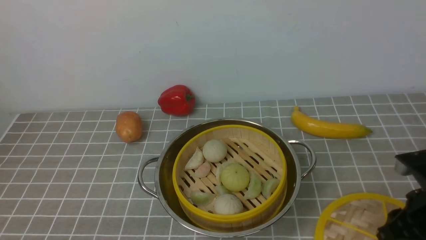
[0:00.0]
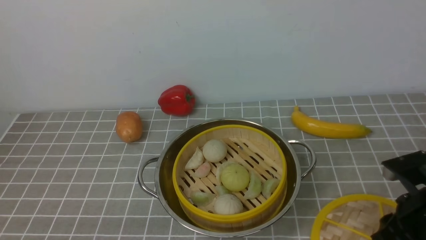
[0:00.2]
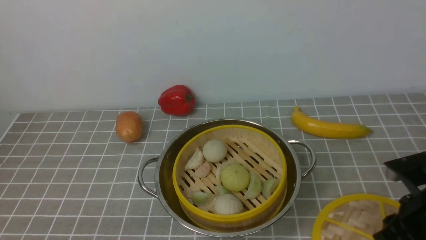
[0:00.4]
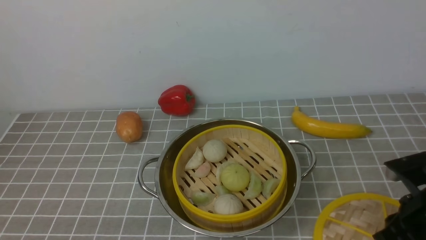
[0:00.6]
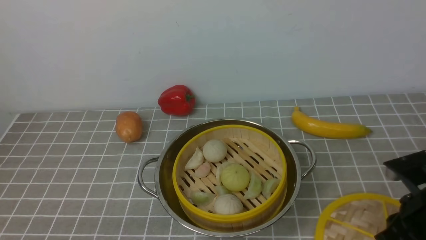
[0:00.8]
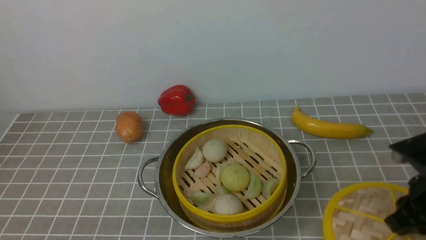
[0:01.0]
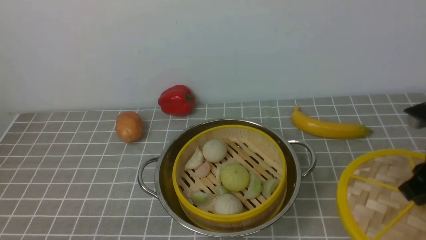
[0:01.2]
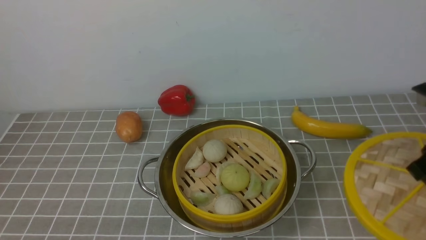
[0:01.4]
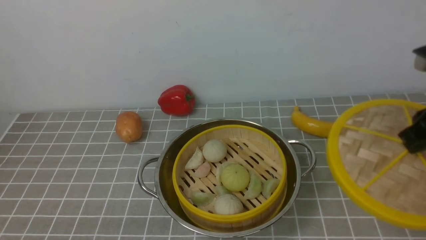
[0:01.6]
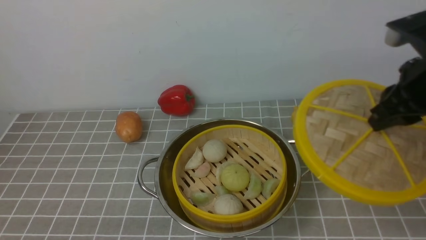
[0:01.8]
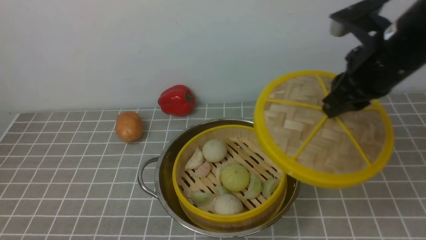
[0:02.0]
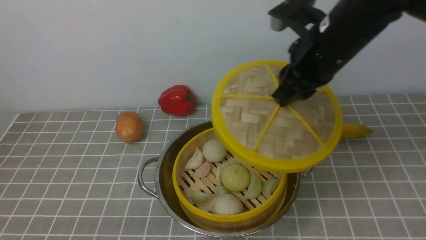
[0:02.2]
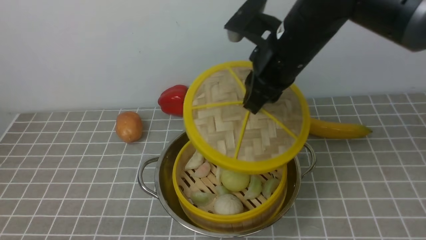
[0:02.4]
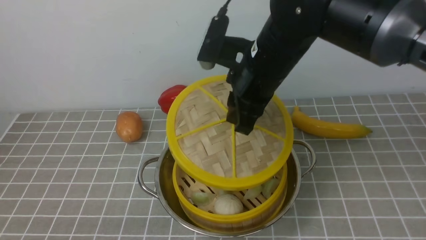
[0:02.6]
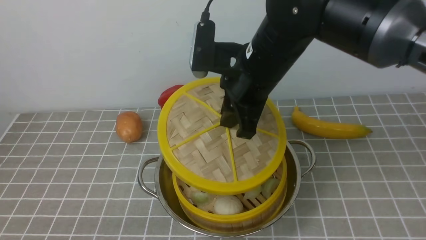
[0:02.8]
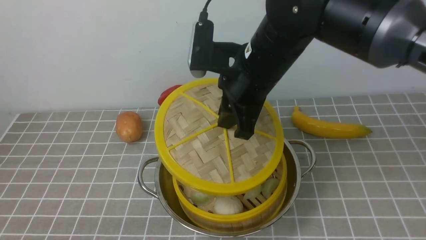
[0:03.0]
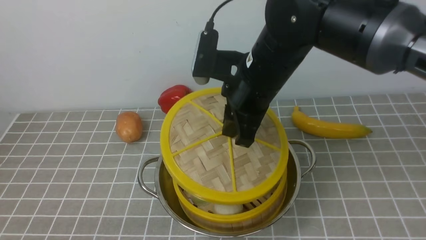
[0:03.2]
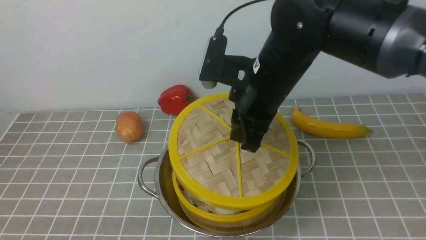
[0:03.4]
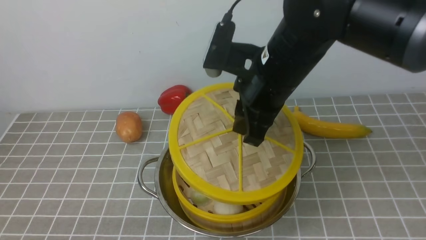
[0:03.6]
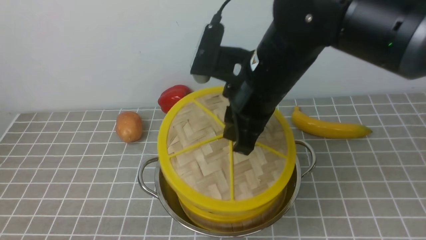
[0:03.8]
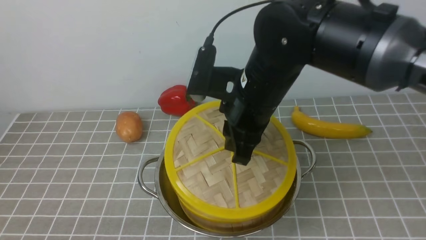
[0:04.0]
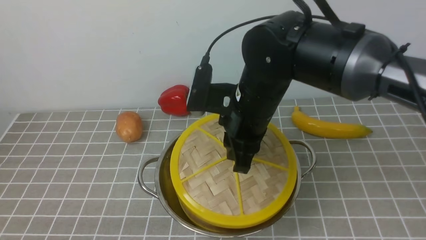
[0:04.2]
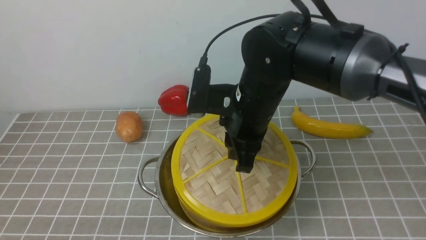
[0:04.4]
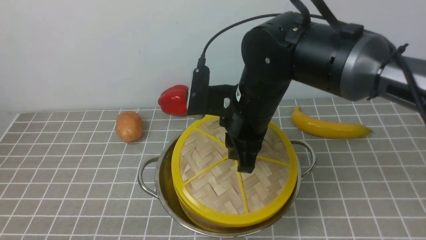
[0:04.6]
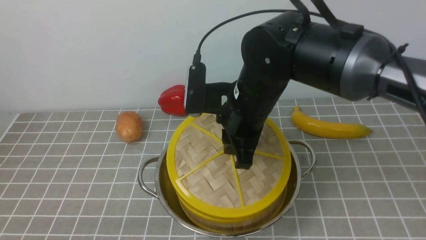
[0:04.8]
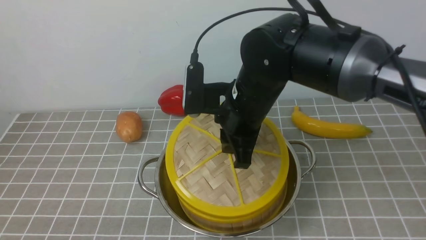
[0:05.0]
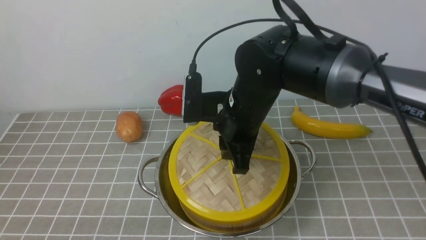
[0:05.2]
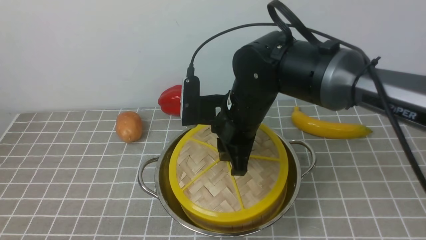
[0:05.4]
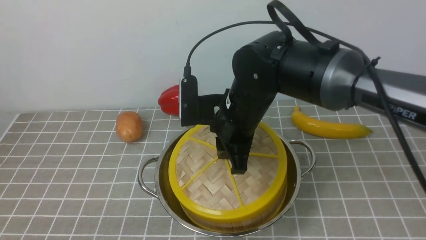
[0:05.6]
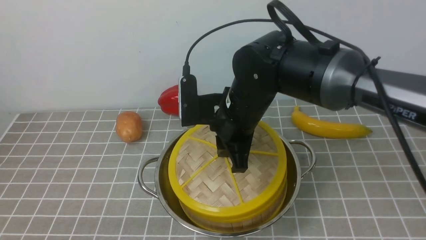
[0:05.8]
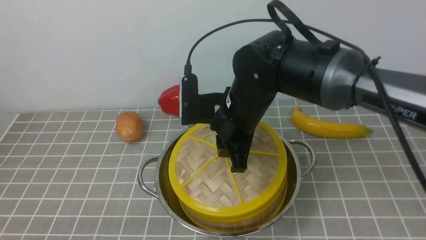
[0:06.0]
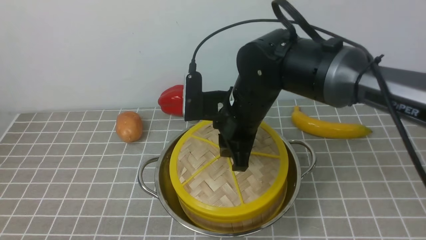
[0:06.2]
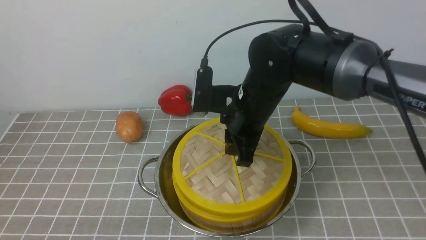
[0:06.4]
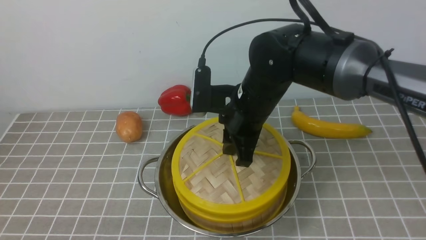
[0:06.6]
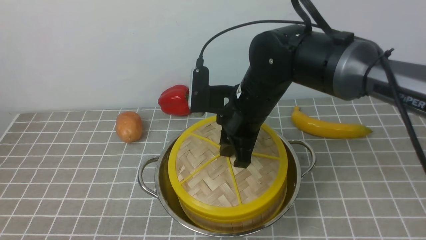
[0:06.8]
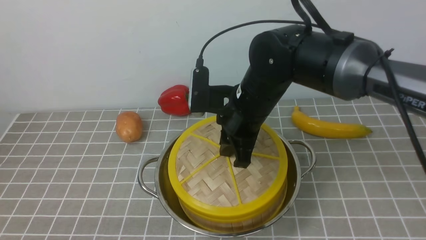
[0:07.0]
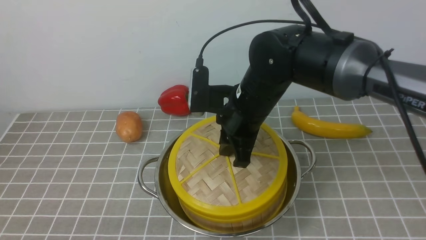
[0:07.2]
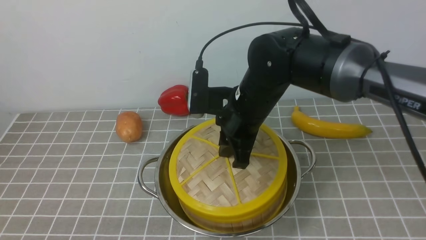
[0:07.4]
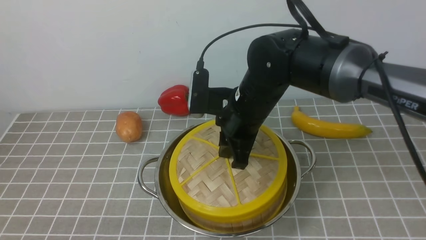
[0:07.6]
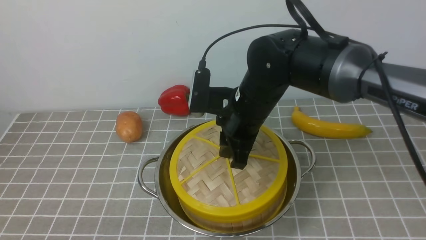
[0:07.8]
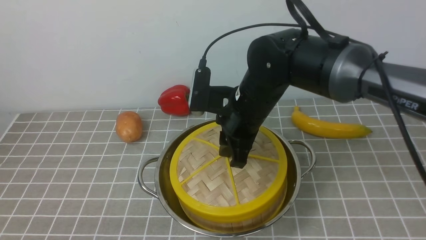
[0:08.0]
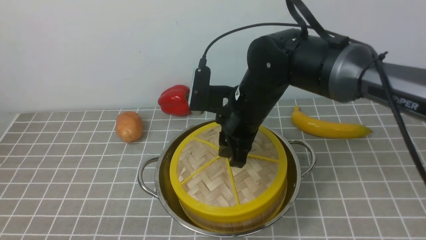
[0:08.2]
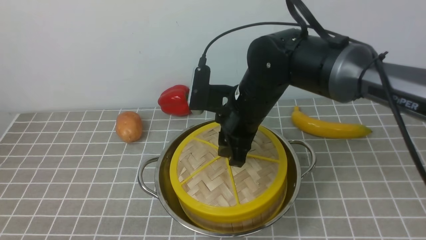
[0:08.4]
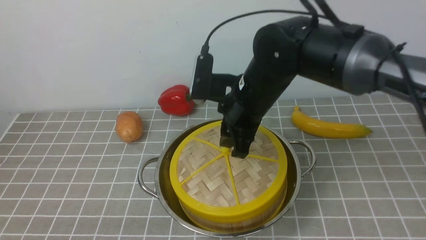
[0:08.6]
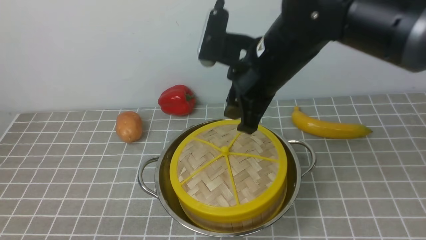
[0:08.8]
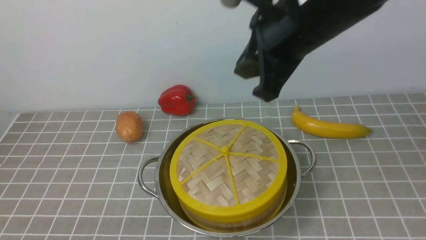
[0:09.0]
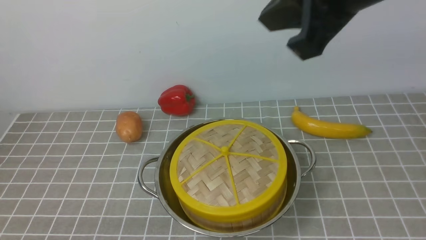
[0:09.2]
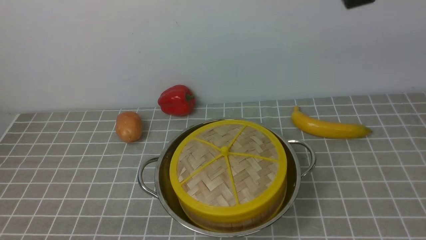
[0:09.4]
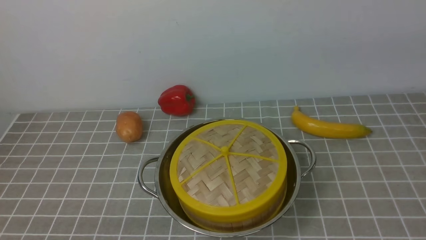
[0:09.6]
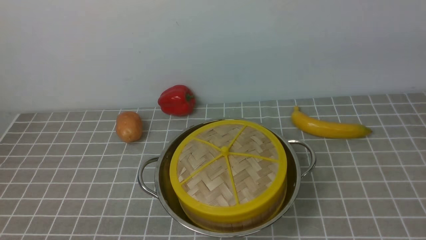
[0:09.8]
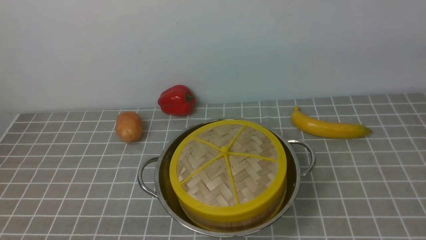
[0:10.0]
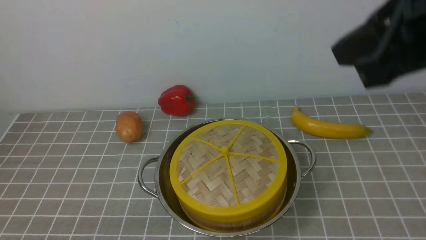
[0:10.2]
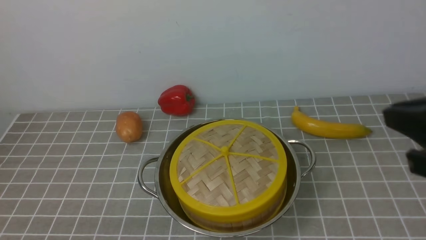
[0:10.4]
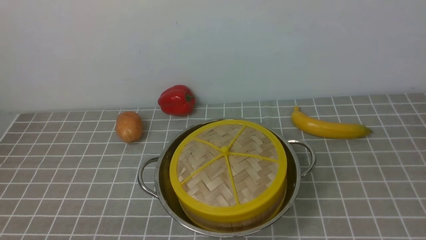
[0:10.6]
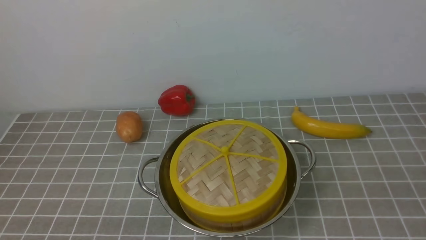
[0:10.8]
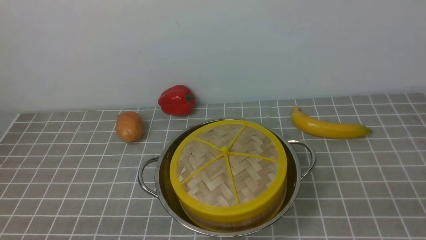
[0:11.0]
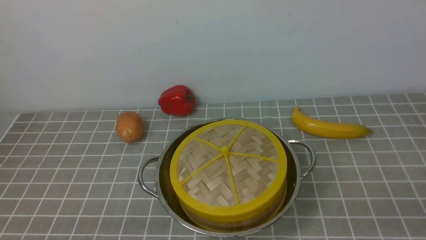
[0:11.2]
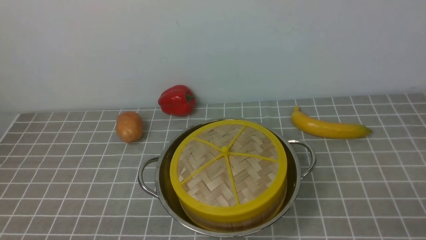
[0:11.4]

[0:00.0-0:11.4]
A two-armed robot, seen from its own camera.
Task of the whole recording: place the steamer in the pot on the grey tablecloth, and put the lid on the steamer.
Step, 0:01.0 to 0:08.6: use the right arm to place the steamer lid on the steamer.
0:00.0 to 0:01.4: The right gripper heads upward, covering some 10 cm, and closes its fingers.
0:01.4 to 0:02.8: The right gripper heads to the left, covering approximately 25 cm.
0:04.2 to 0:07.2: The grippers move only a little.
0:07.2 to 0:08.6: The right gripper opens its fingers.
0:08.6 to 0:10.0: The right gripper moves upward, backward and to the right, about 25 cm, and closes.

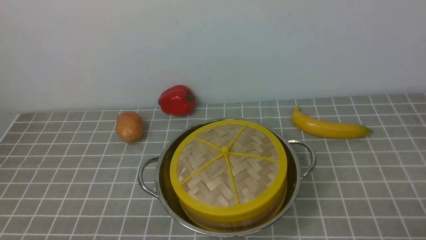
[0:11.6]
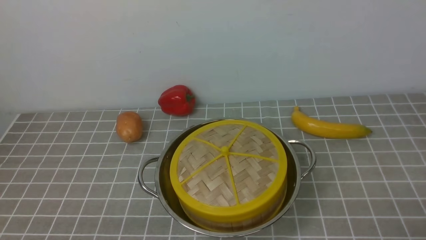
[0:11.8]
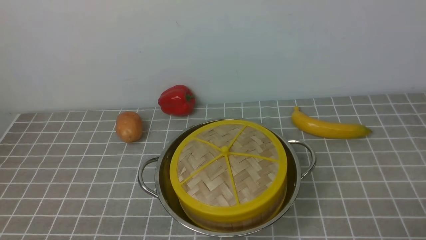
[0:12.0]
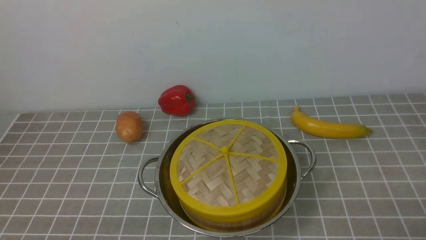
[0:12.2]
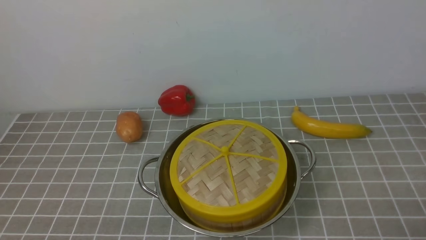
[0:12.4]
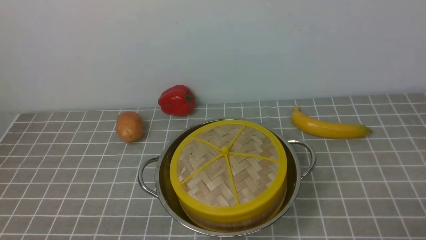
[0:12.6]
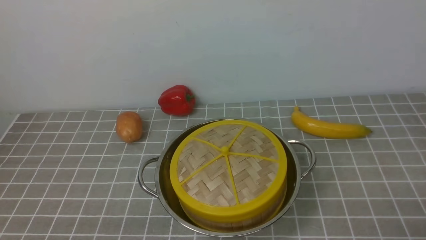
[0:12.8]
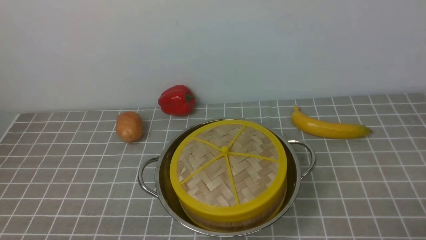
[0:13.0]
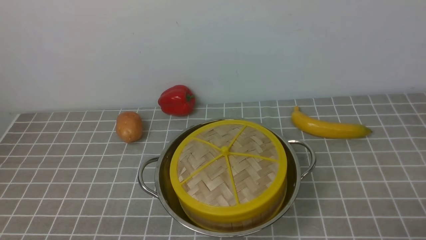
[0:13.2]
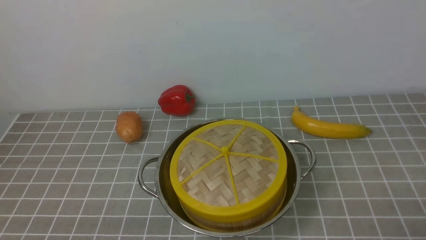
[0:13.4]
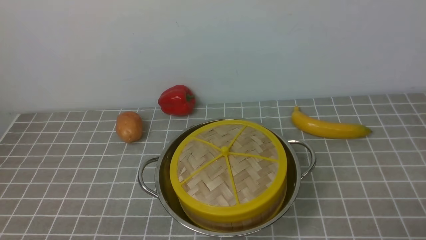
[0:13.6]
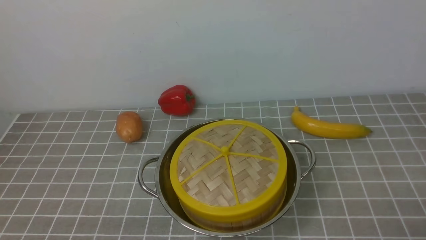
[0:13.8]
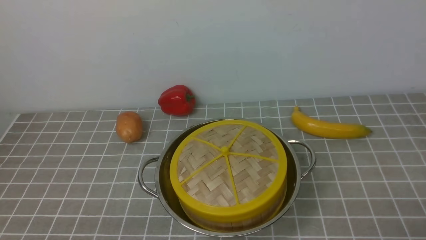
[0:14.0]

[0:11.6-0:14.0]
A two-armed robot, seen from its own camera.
Task of the whole recording: place the steamer in the pot on the grey tablecloth, and put the lid on the steamer.
0:11.6 to 0:14.0: Both grippers stay about where they are.
